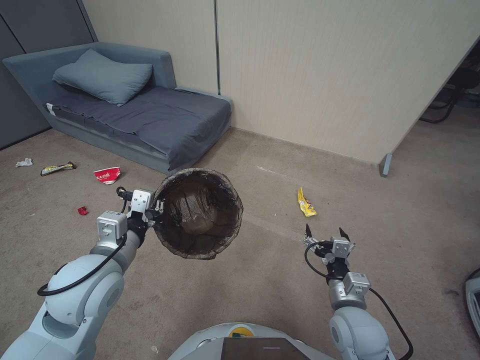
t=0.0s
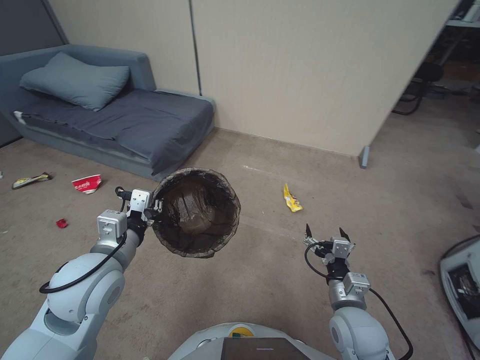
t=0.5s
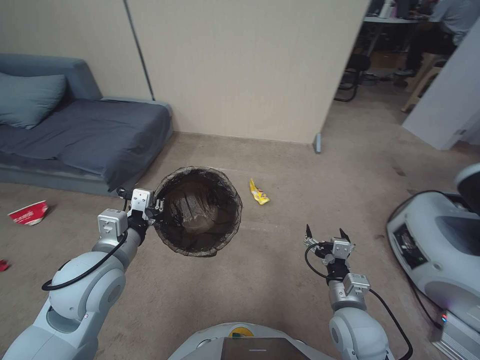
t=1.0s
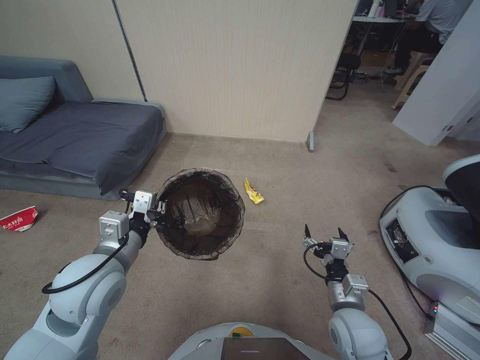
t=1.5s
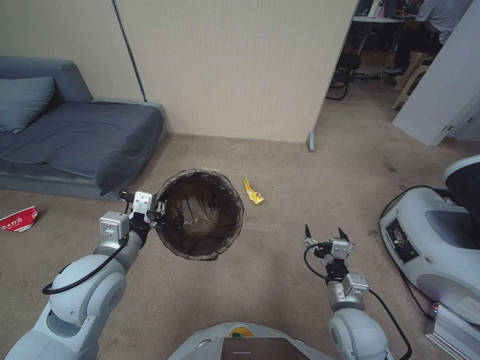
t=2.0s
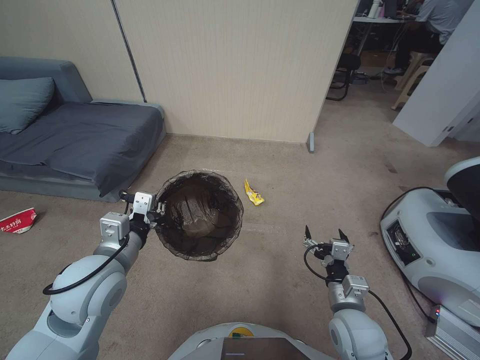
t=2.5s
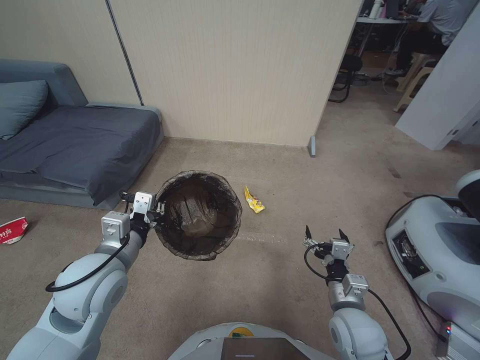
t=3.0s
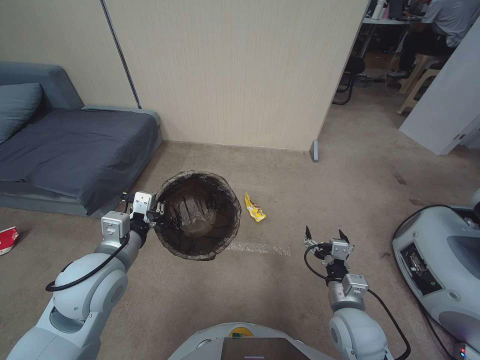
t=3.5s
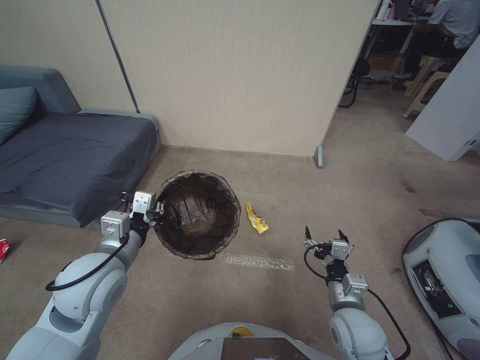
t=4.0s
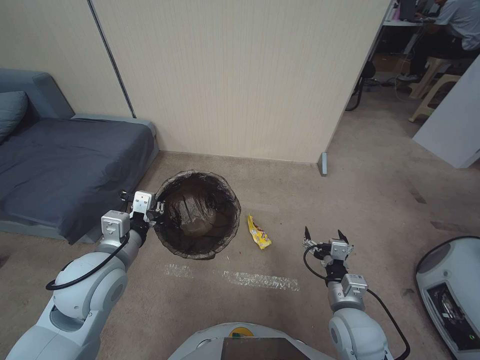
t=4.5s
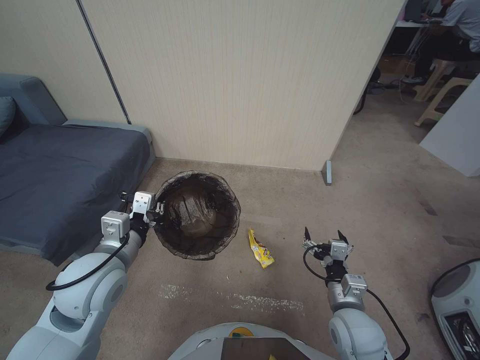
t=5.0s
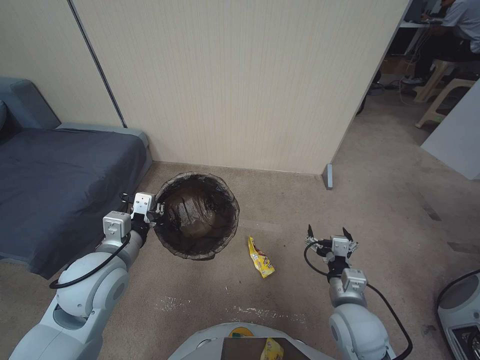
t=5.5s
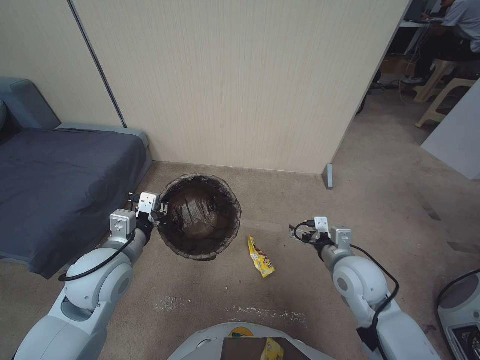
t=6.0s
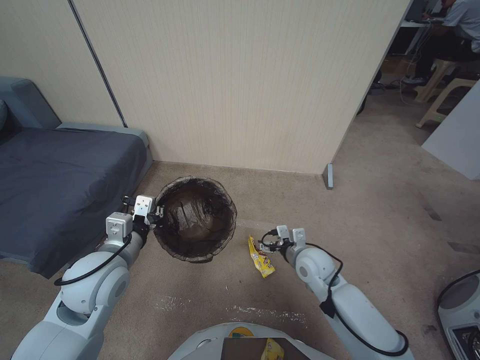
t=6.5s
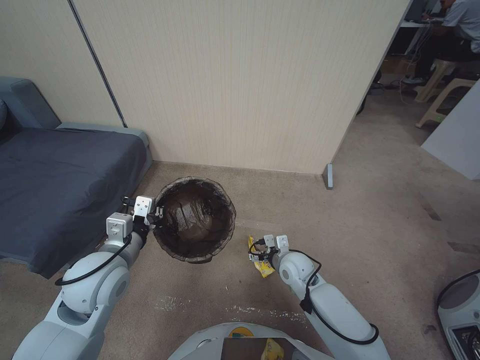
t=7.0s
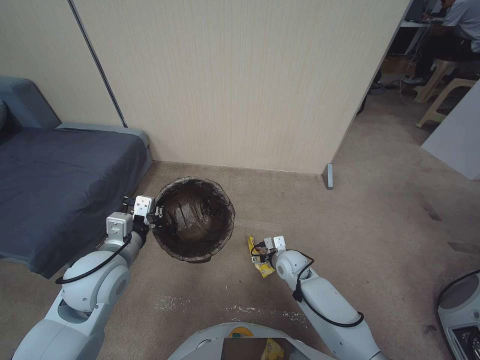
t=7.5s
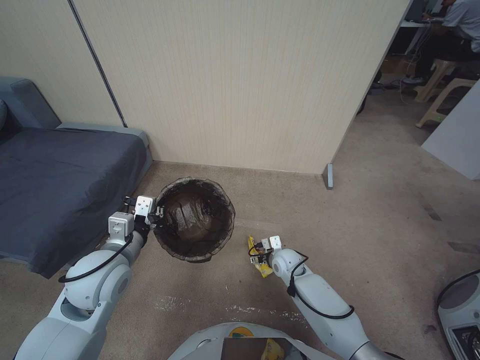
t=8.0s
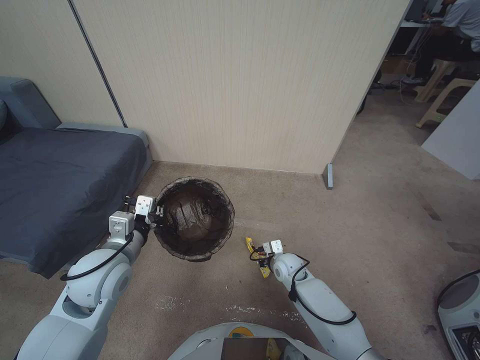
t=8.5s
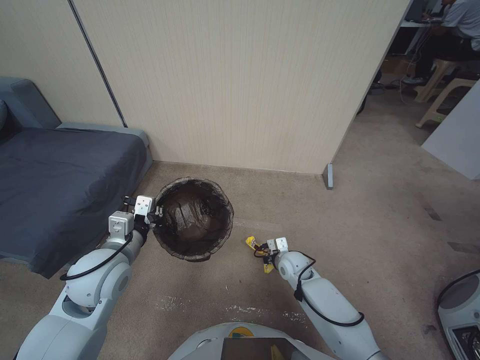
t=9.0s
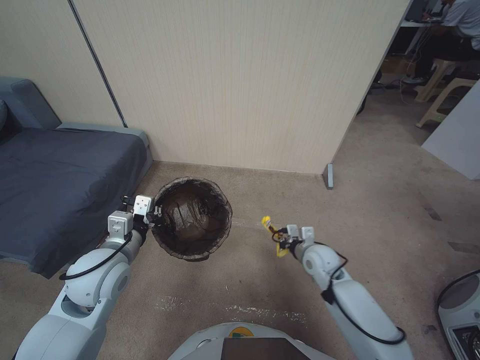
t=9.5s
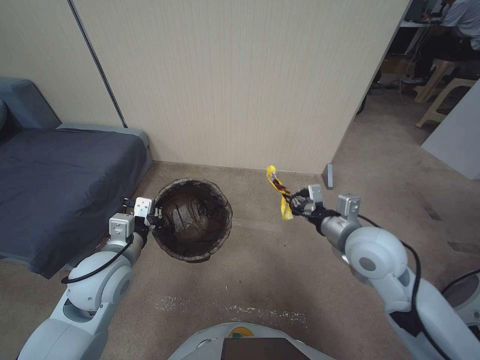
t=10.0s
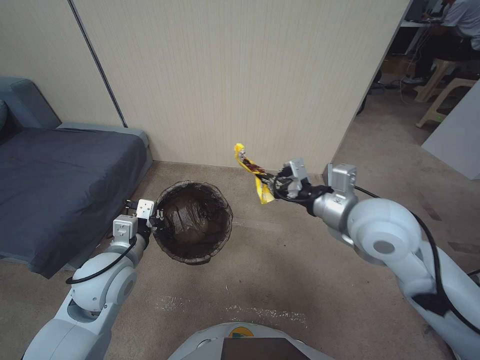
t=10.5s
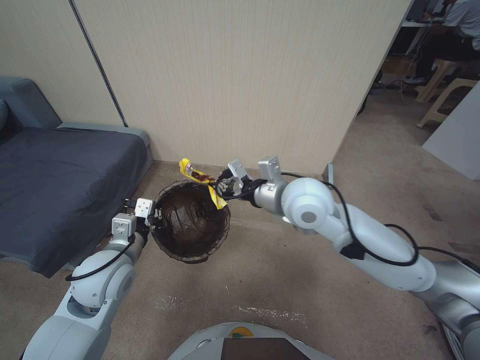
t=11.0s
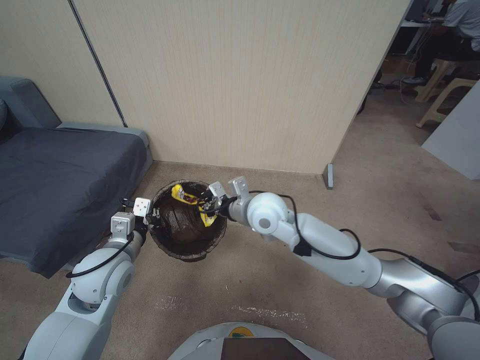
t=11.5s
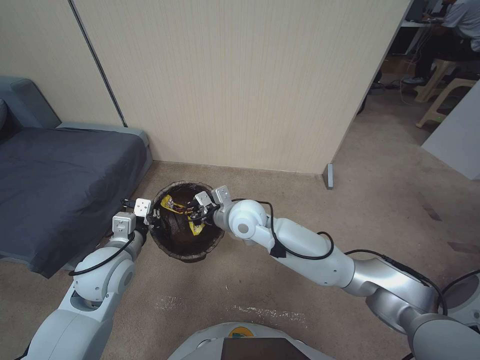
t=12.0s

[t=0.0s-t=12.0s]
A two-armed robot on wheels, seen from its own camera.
Task of the whole recording: Pick up the trash bin, then pick up the garbage from the floor and place it into the trash bin.
t=2.0s to t=4.0s: Both grippers stay about where they are.
t=4.0s to t=6.0s: The right gripper goes about 10 cm upward and forward.
t=6.0s to t=8.0s: The right gripper moves downward, forward and to the left, some 25 cm.
t=8.0s to t=10.0s: The right gripper heads upward, covering roughly 25 cm, and closes up.
t=10.0s to t=12.0s: The right gripper heads to the left and forward, covering approximately 25 cm.

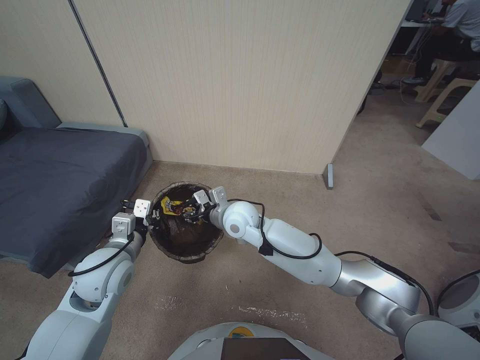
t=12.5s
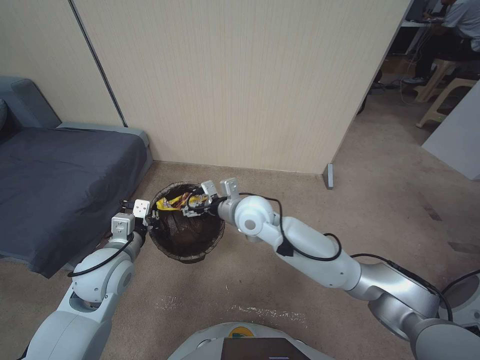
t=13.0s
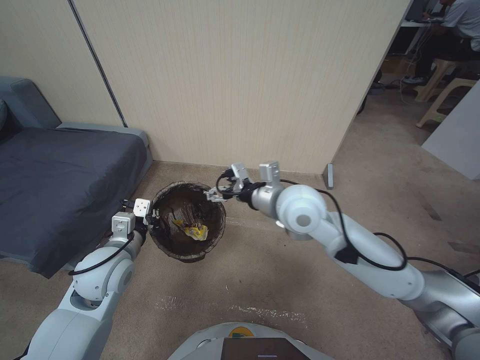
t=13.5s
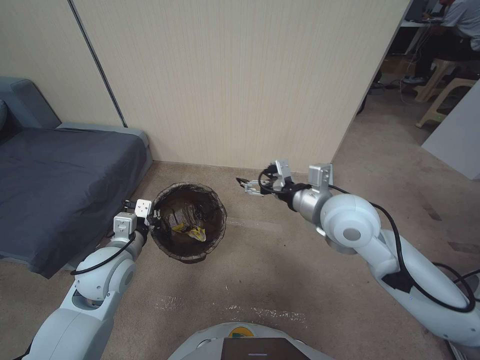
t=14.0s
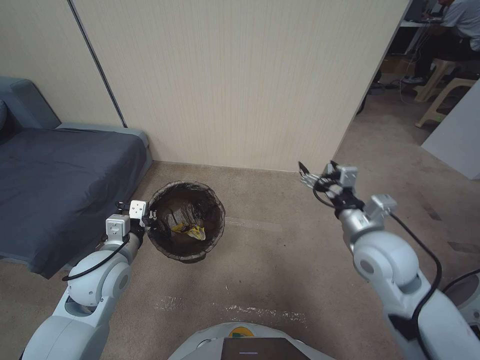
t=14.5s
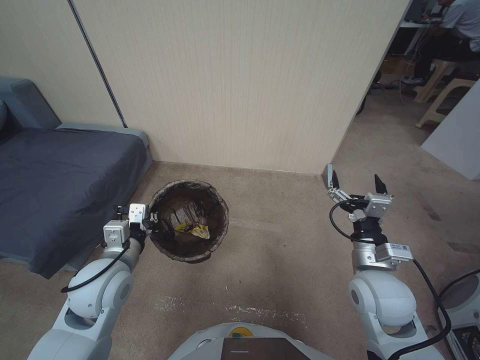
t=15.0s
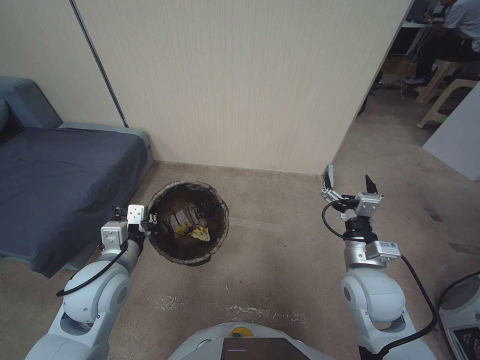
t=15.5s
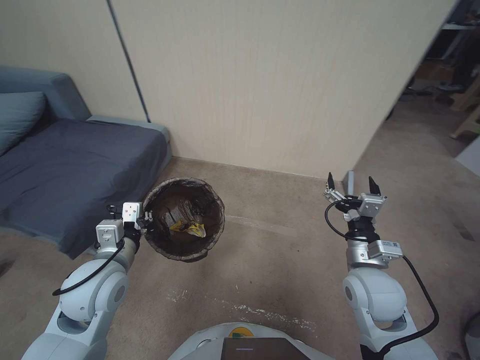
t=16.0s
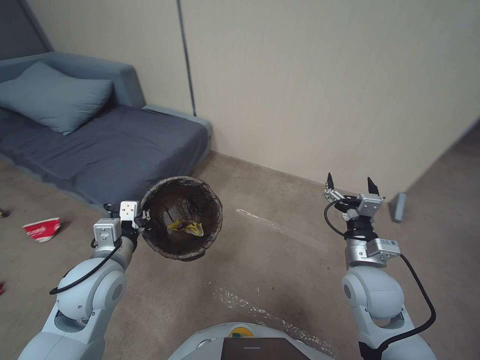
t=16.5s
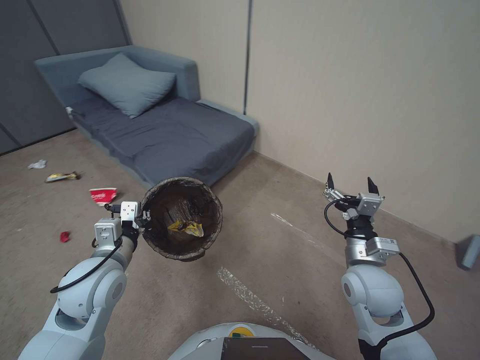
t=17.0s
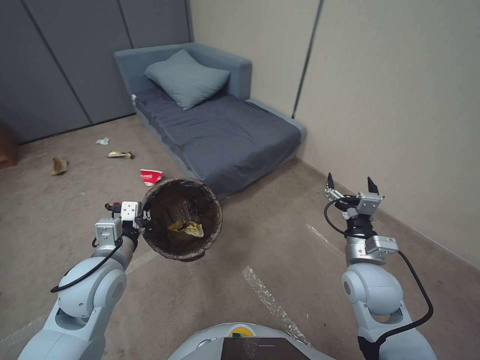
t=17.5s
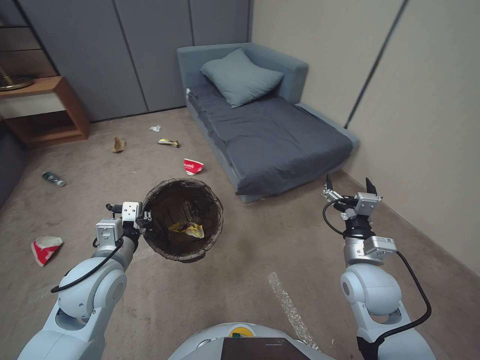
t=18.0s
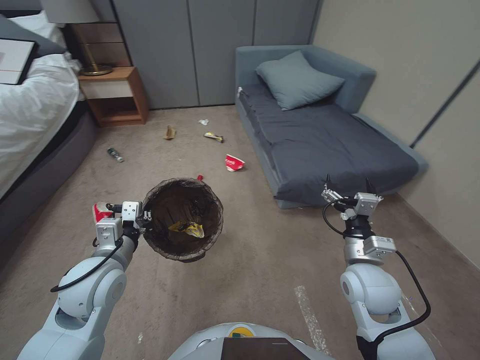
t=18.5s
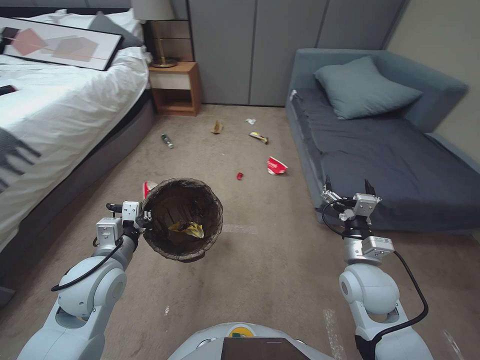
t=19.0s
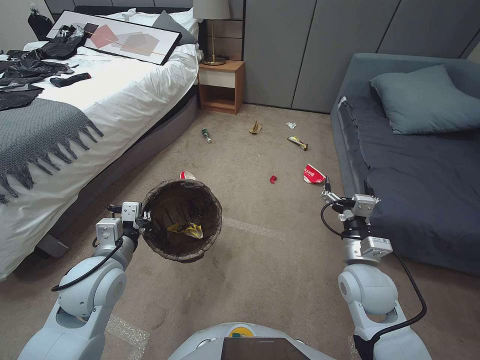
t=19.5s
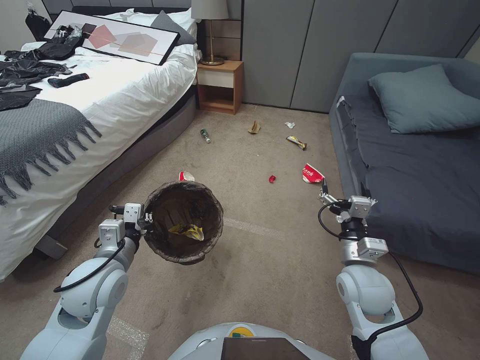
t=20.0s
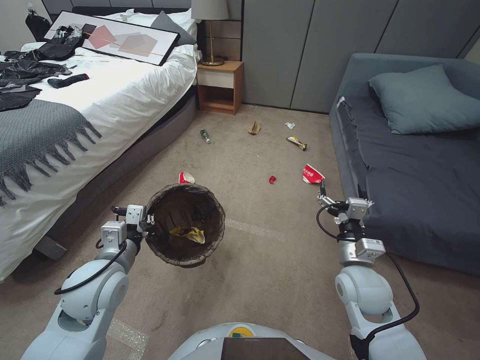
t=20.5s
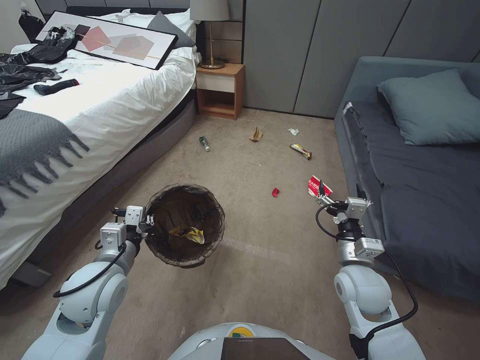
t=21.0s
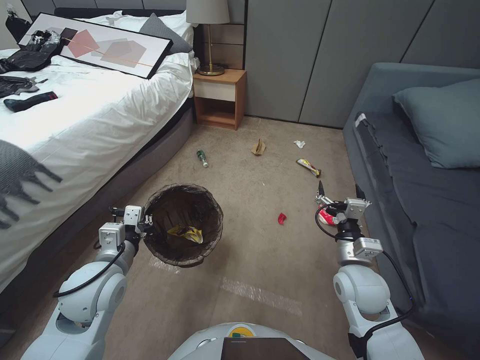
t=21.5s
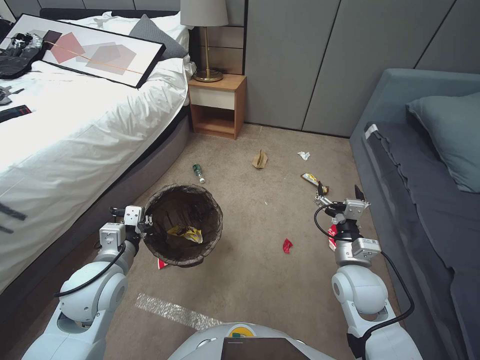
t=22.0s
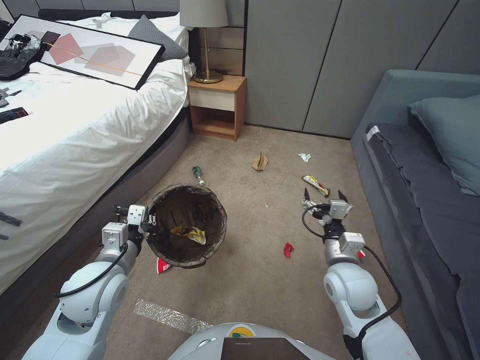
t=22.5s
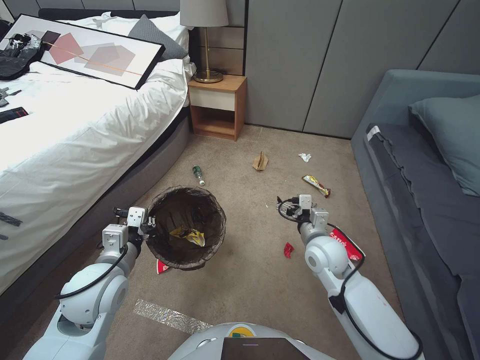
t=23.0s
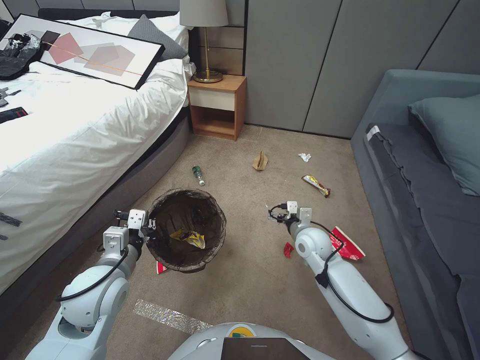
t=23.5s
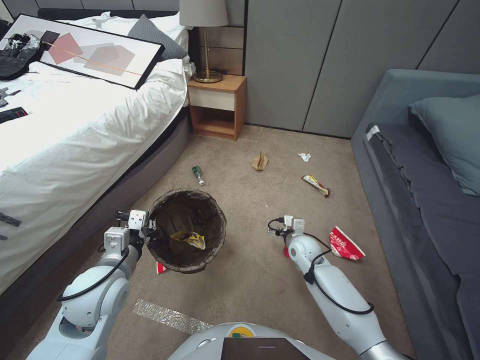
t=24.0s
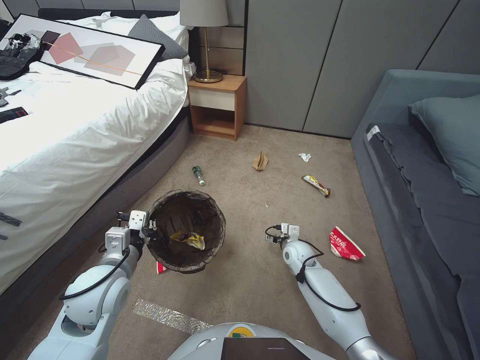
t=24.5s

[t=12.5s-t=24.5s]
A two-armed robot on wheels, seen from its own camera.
Task of the whole recording: Pick up the trash bin, then pick up the garbage from the floor and place it into the trash bin.
t=12.5s to t=14.5s: The right gripper heads to the right and backward, covering some 30 cm, and opens.
t=14.5s to t=16.5s: The right gripper heads downward and backward, covering about 10 cm.
t=22.5s to t=24.5s: The right gripper shifts approximately 20 cm downward and forward.

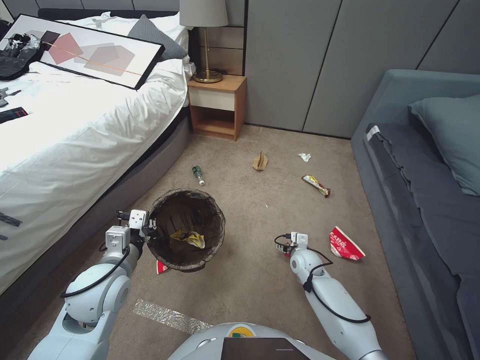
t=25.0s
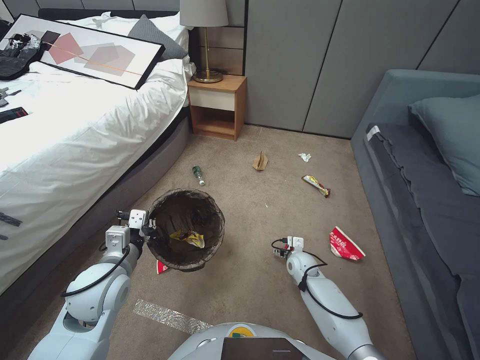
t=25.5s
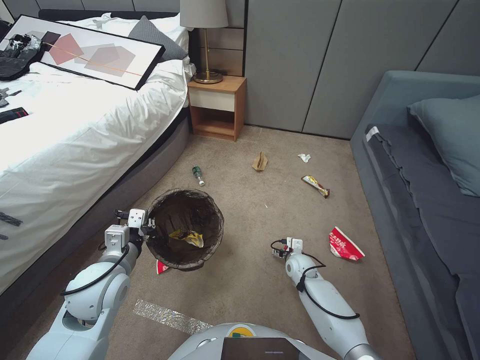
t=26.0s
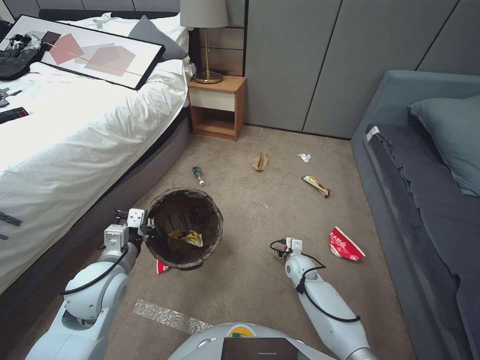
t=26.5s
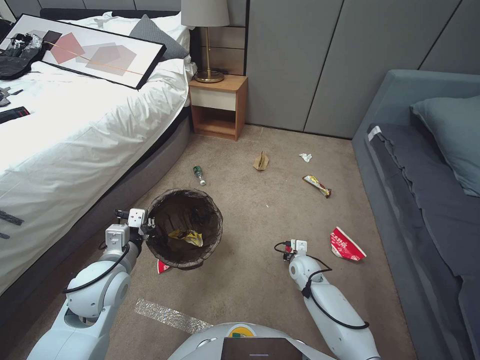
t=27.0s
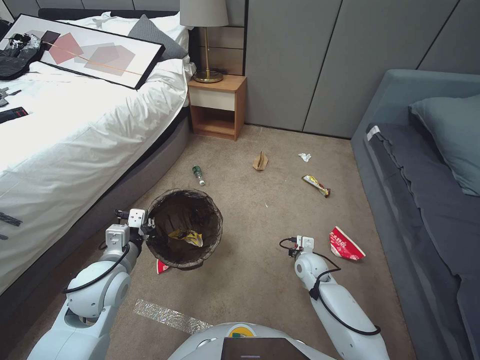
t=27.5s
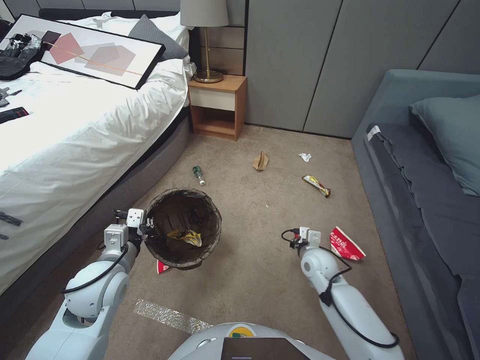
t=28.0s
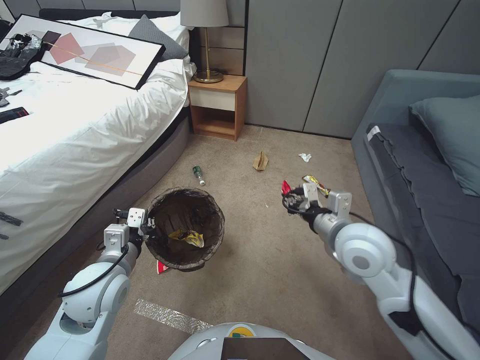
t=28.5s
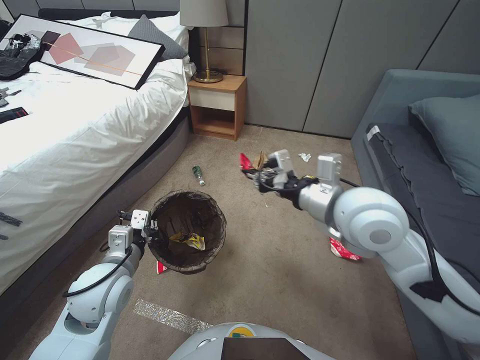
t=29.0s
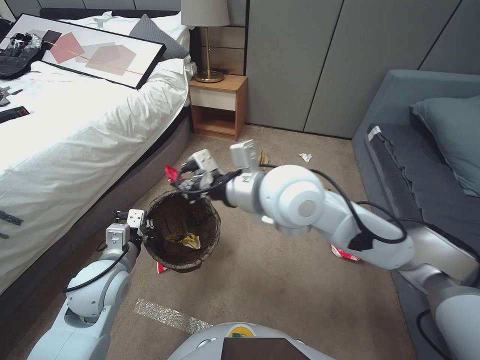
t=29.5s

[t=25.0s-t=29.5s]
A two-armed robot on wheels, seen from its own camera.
Task of the whole recording: Pick up the trash bin, then pick up the garbage from the floor and place it into the trash bin.
t=25.0s to t=27.0s: The right gripper closes its fingers.
t=27.0s to t=29.5s: The right gripper is displaced upward by approximately 50 cm, and closes its fingers.
